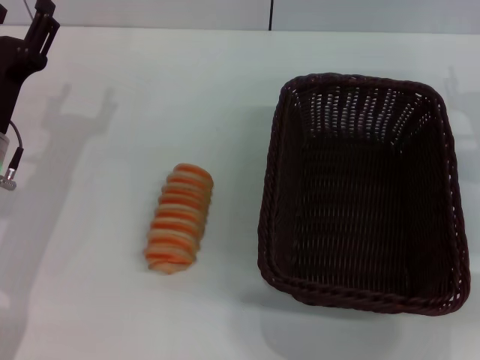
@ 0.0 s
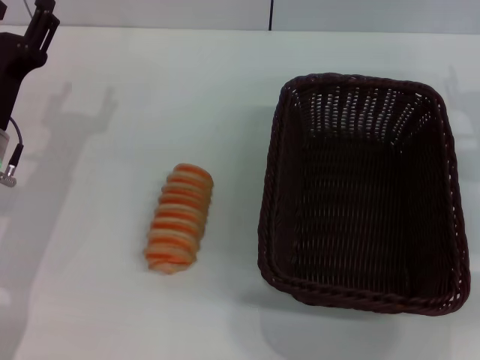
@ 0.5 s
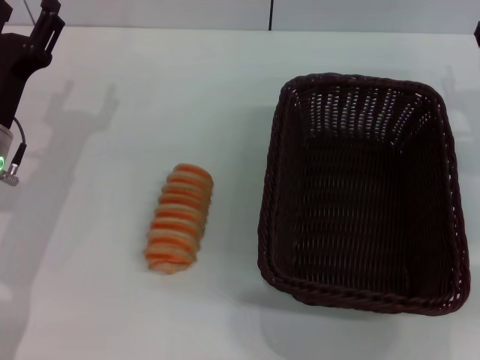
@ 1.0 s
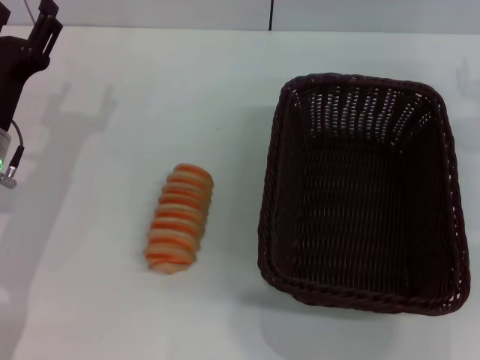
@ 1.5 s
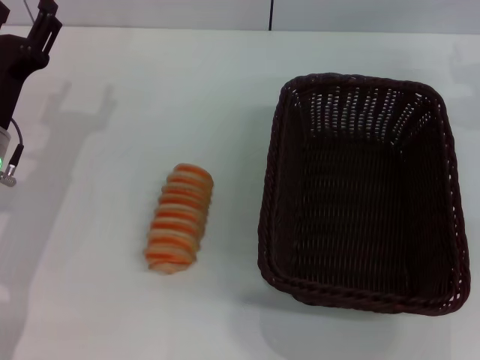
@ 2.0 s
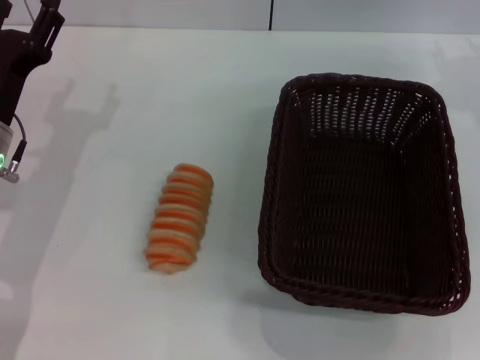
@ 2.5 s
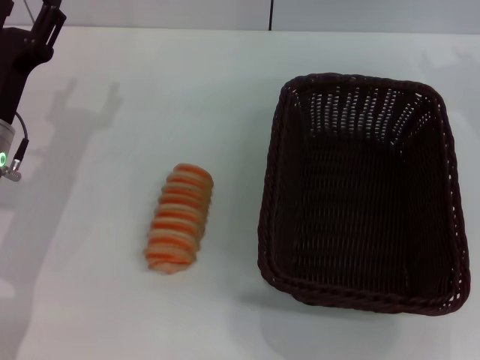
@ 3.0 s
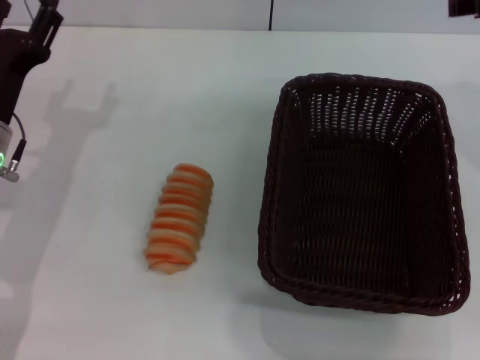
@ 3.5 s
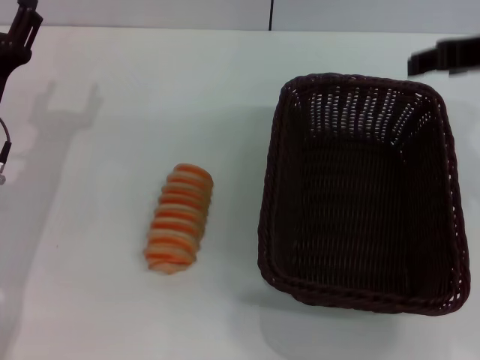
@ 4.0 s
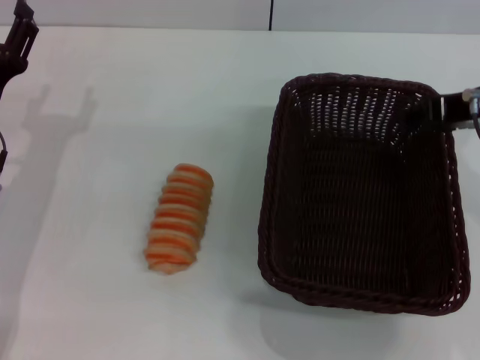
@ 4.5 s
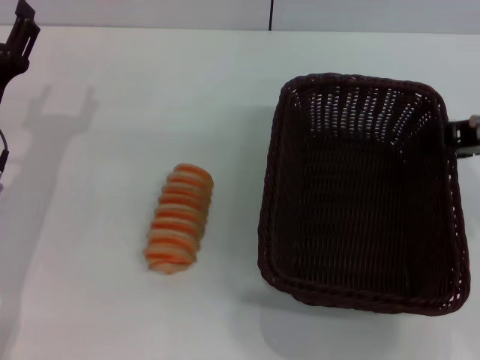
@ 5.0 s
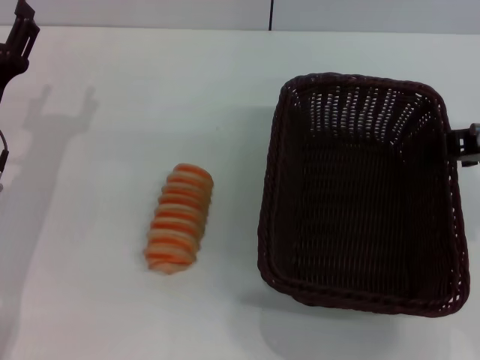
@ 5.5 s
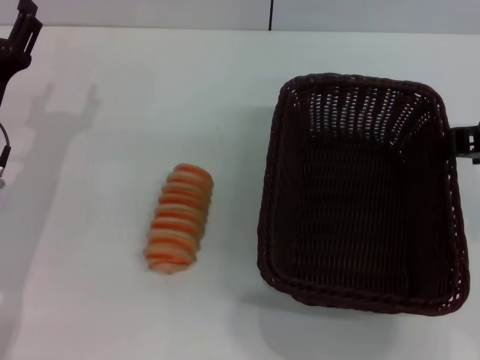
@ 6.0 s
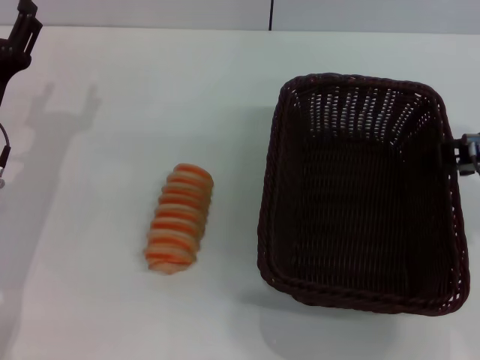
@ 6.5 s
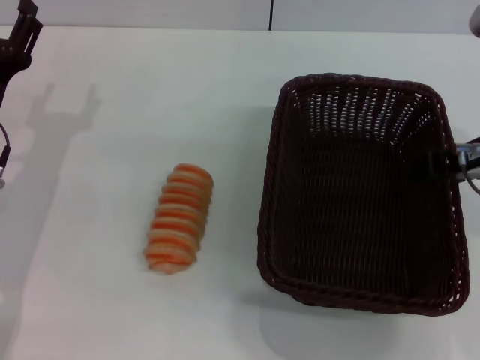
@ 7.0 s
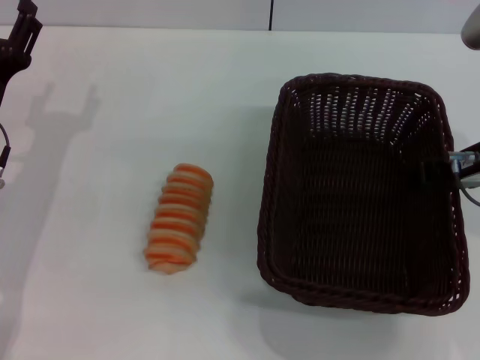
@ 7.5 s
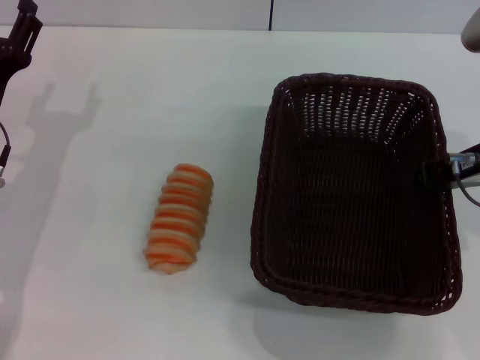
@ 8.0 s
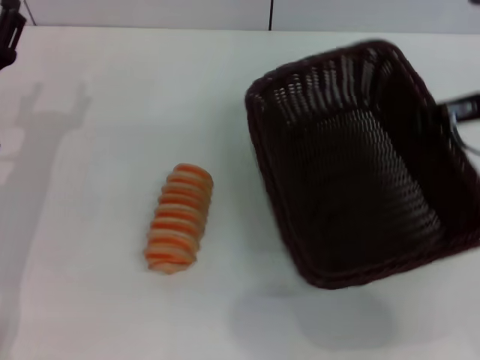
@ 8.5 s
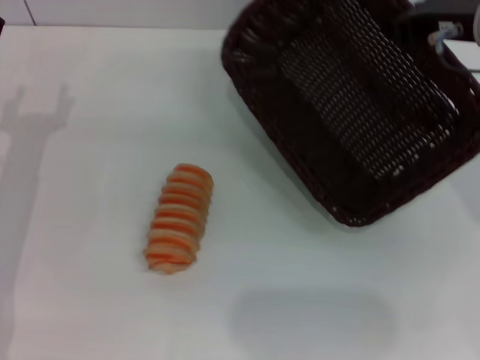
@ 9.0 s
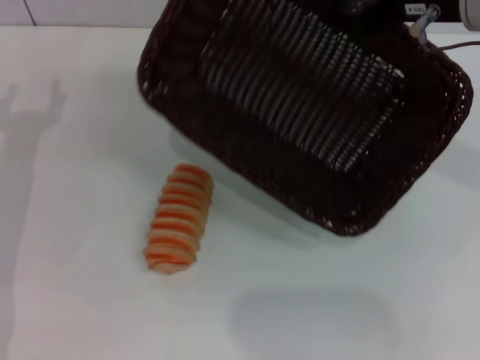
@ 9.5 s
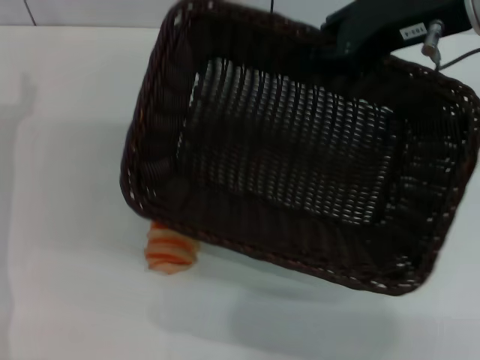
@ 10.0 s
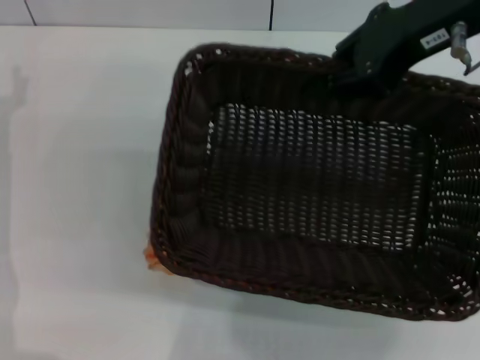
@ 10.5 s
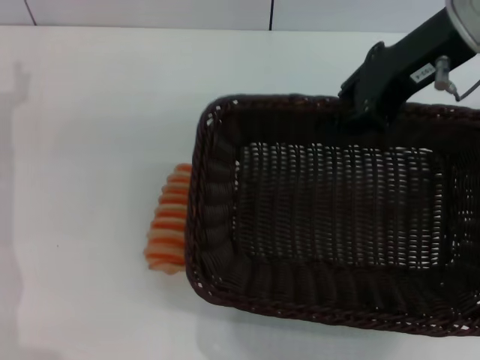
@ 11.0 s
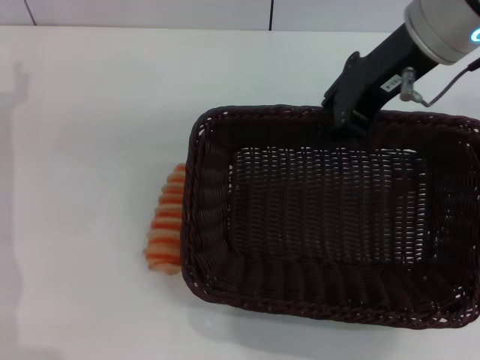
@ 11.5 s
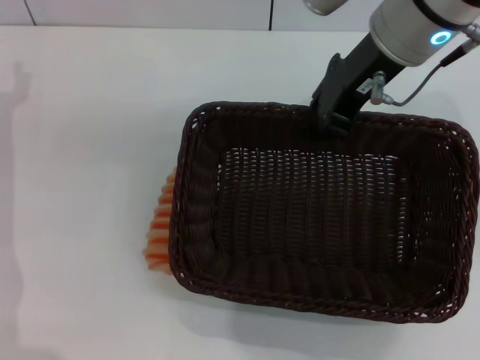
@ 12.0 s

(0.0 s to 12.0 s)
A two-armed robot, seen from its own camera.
Step, 0.0 s - 9.0 s: Pick up the dark basket with the right gripper.
2.0 s - 4.0 s: The right gripper heads upward, backward and to the left, covering about 15 cm.
4.0 s - 6.0 s: There are only small adjustments of the grippers.
6.0 s - 8.0 s: The right gripper closes.
8.0 s - 10.0 s: The right gripper heads upward and forward, covering approximately 10 cm, and closes.
10.0 s - 12.0 s: The right gripper heads to the left, covering some 5 cm.

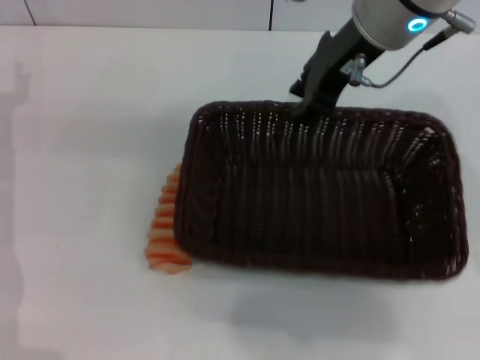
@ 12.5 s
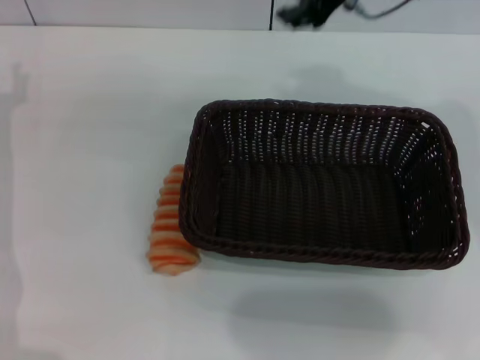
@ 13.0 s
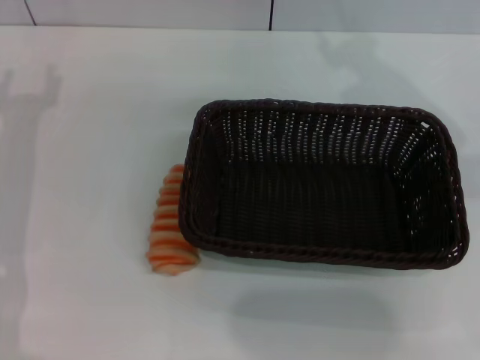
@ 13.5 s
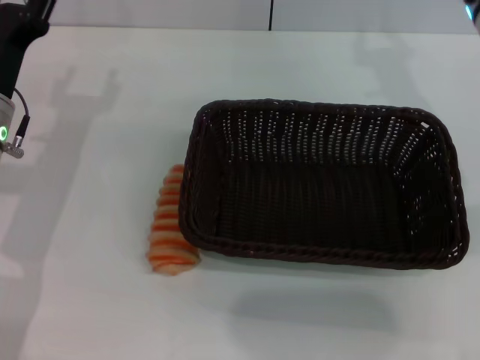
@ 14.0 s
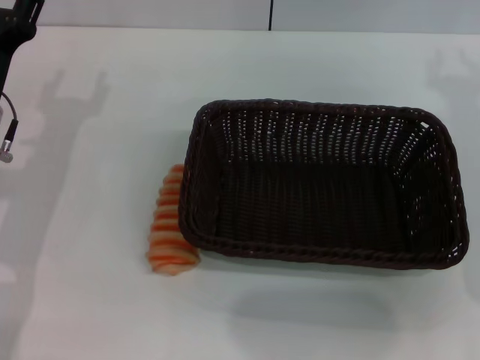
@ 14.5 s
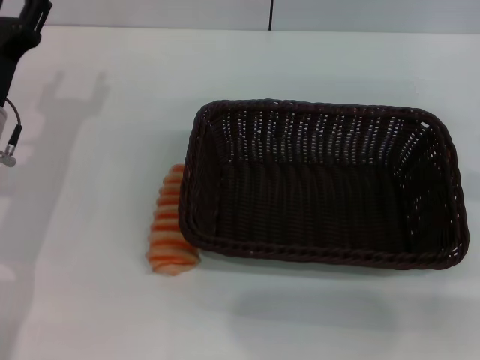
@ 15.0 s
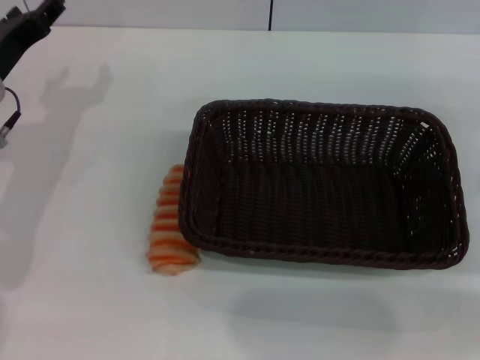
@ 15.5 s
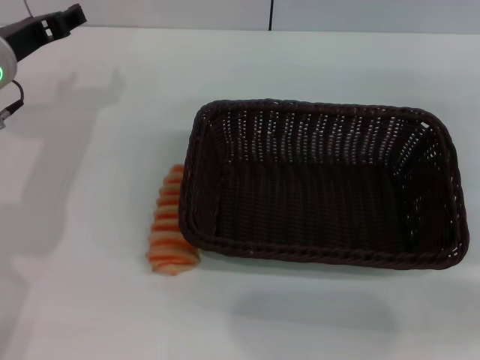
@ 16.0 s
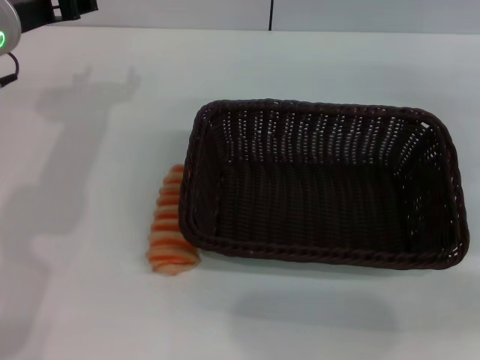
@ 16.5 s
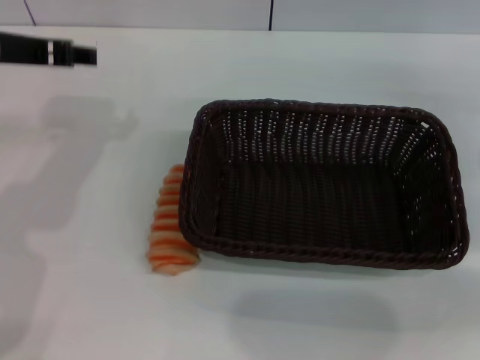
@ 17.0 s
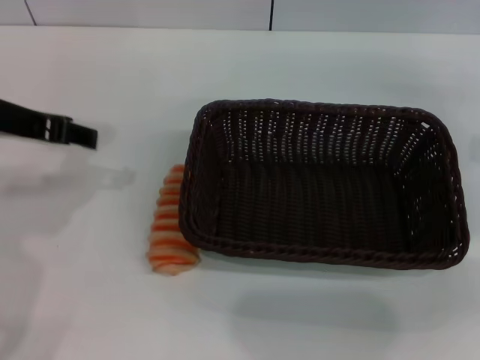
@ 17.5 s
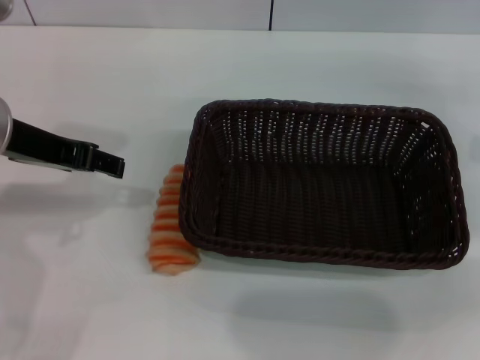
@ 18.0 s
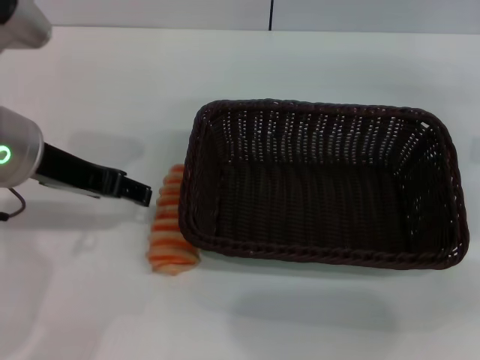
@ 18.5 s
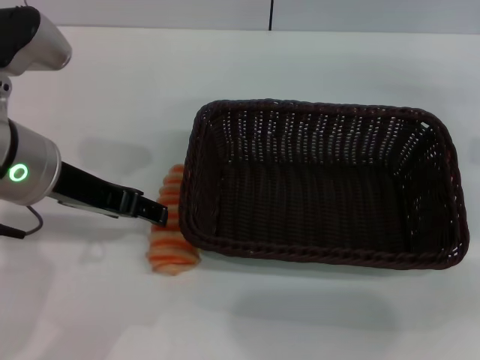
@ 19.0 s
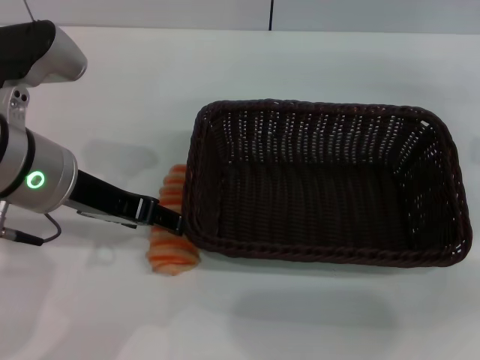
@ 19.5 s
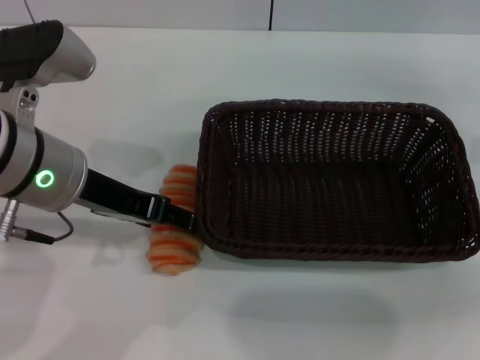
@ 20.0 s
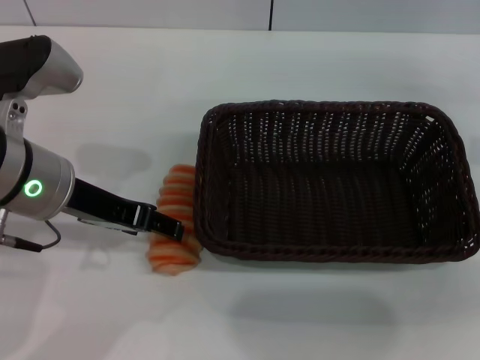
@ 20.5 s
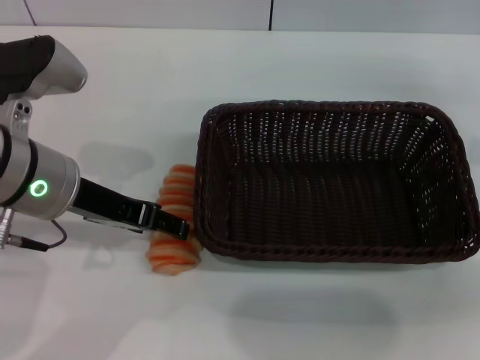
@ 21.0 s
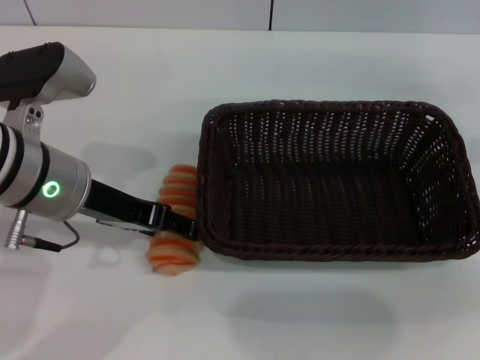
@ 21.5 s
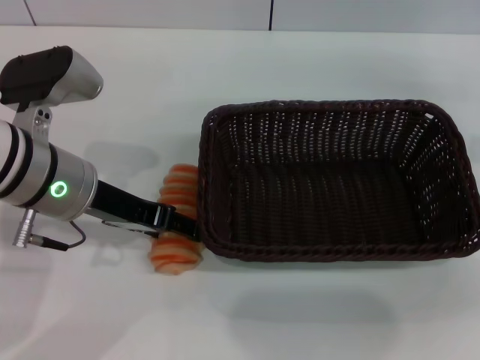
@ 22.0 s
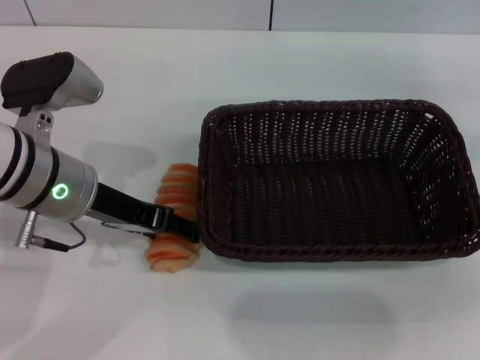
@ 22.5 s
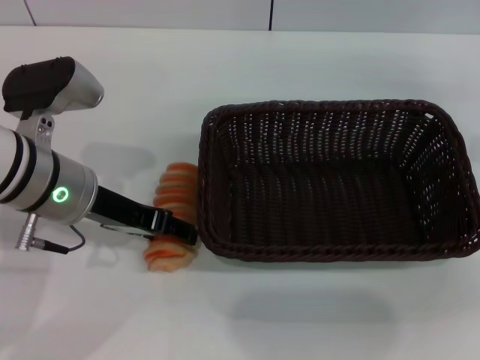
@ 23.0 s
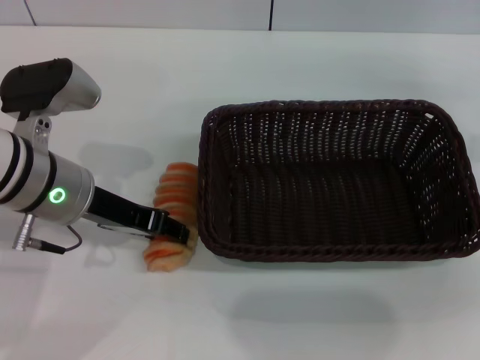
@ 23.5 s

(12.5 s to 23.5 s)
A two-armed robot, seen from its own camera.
12.5 s - 14.5 s: The left gripper moves to the right, approximately 5 cm; the right gripper is displaced to the right and downward by approximately 20 cm.
14.5 s - 16.0 s: The left gripper goes approximately 5 cm upward. The right gripper shifts some 5 cm to the right.
16.0 s - 18.0 s: The left gripper travels backward and upward by roughly 10 cm.
18.0 s - 20.0 s: The left gripper changes place by roughly 5 cm.
20.0 s - 21.5 s: The grippers make only small movements.
21.5 s - 23.5 s: The left gripper closes.

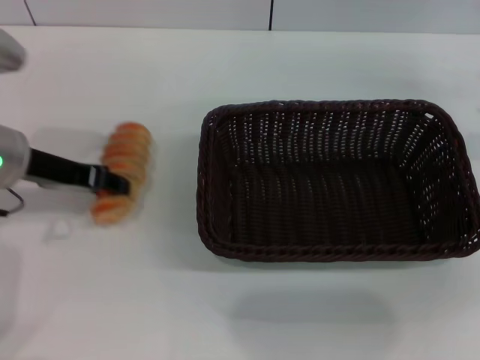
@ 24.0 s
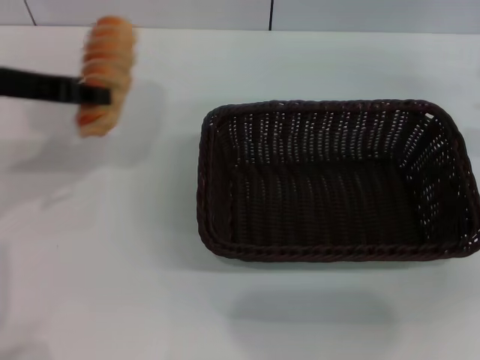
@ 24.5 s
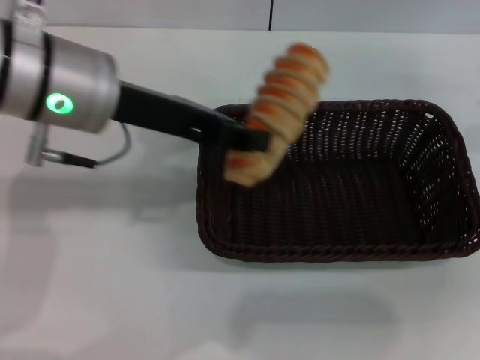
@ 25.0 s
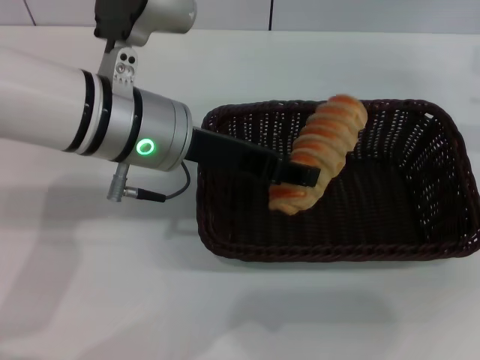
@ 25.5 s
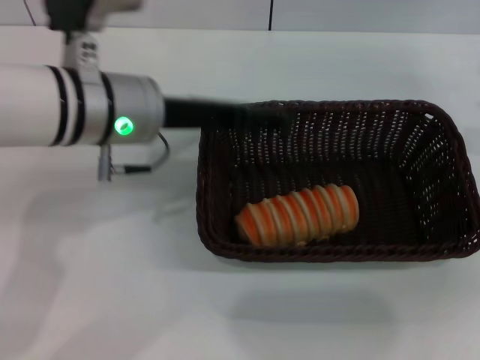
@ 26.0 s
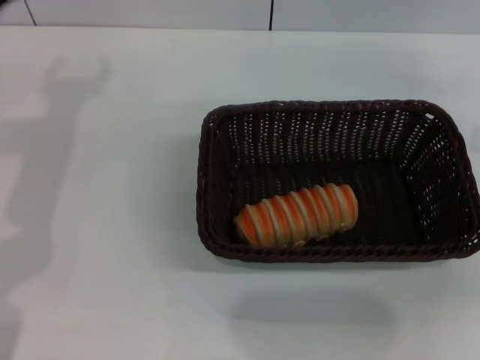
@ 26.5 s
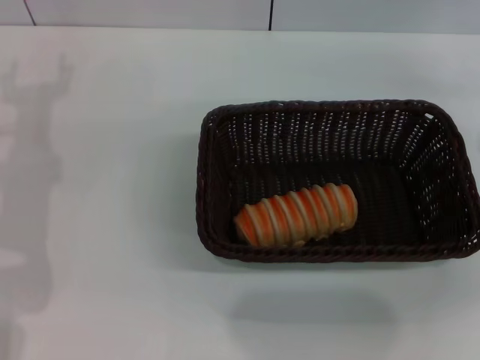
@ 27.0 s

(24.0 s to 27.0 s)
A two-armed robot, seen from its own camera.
Step, 24.5 s - 25.5 s: Place the long bread into the dark basket with the left gripper.
24.0 s - 25.5 s: The left gripper is displaced to the right by approximately 15 cm.
25.5 s - 27.0 s: The left gripper moves to the left, about 15 cm, and opens.
